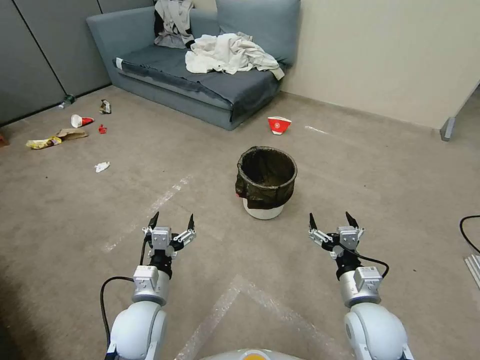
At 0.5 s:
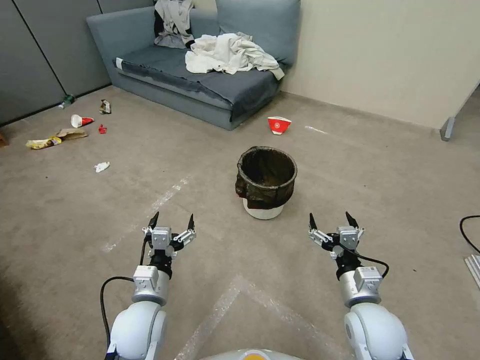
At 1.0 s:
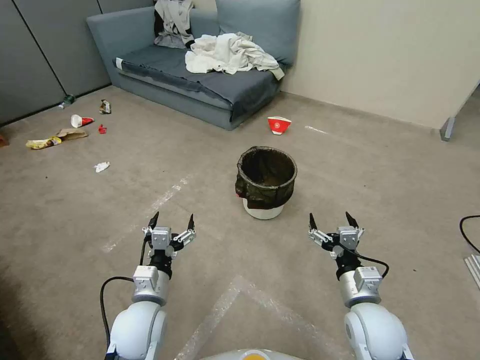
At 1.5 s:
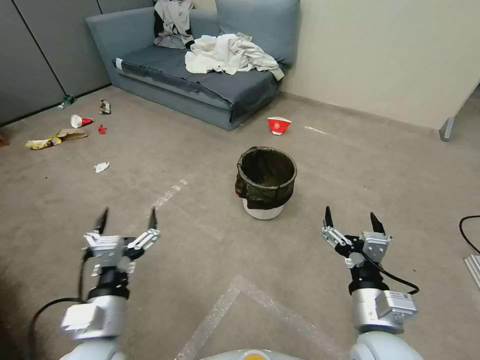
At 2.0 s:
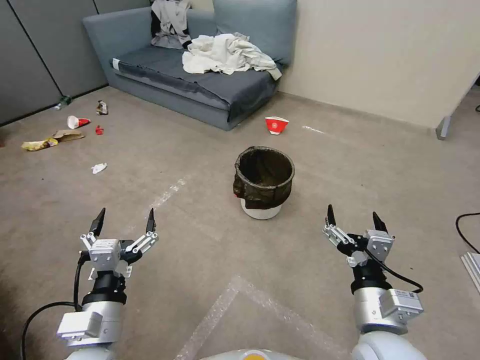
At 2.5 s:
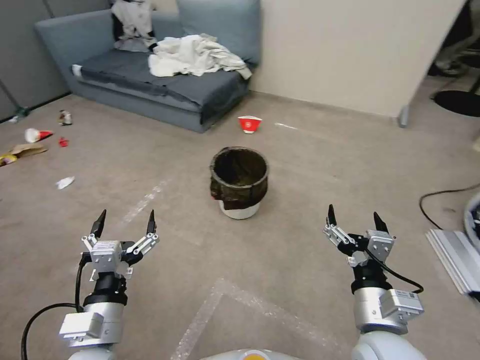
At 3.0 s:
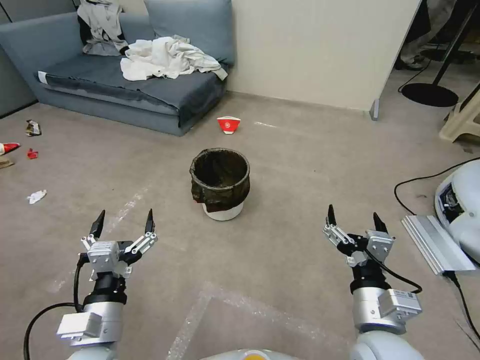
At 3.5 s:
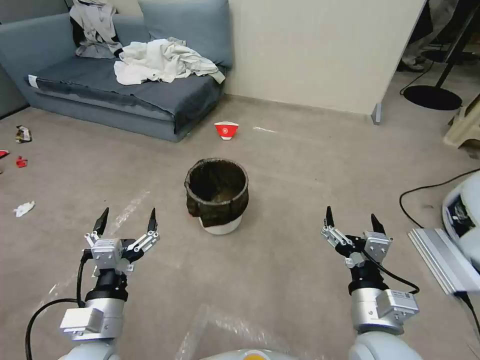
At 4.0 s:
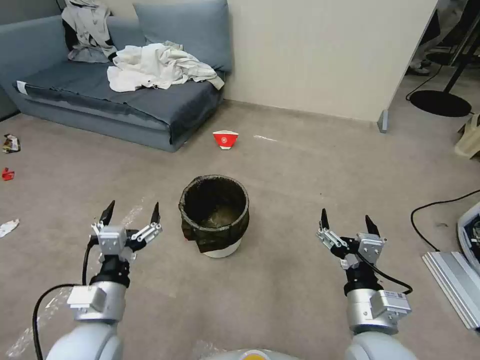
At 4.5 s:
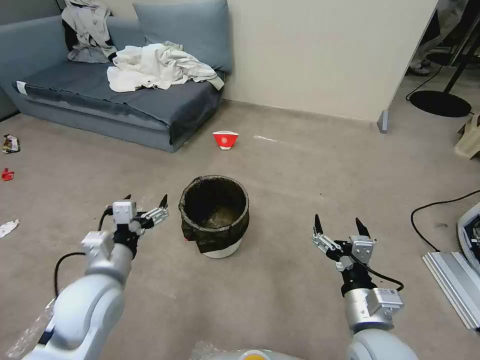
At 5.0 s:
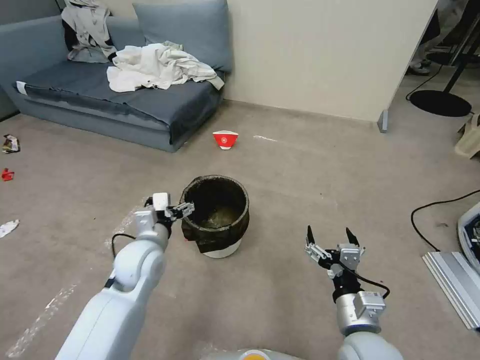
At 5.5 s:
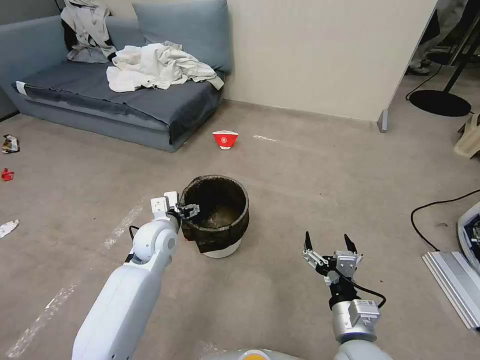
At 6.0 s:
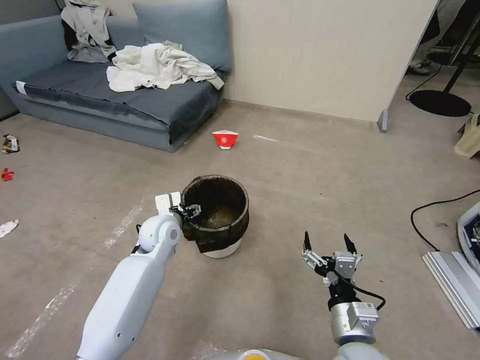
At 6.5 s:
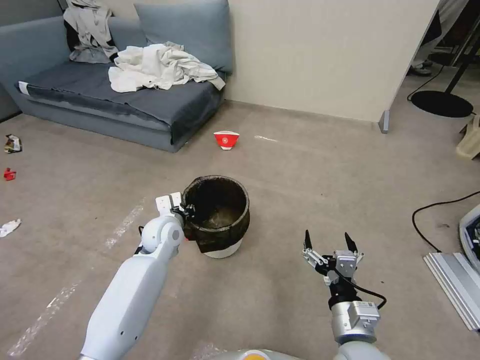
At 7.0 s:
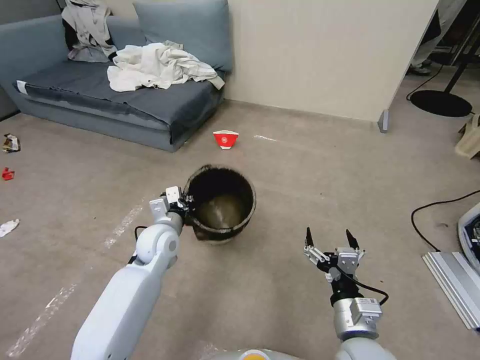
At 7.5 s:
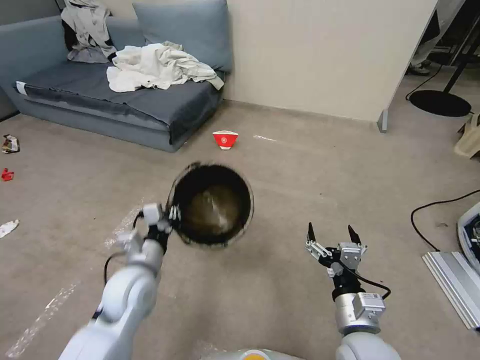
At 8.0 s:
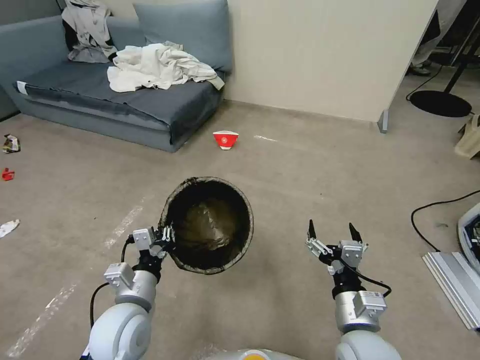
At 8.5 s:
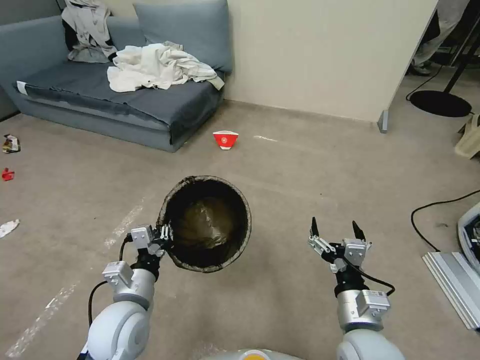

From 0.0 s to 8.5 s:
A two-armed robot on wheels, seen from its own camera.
Task of the whole recording: Pick up the trash can from the floor.
From 4.0 s to 6.5 s: The left gripper shifts about 25 cm forward, and closes. The right gripper is displaced downward by approximately 5 cm.
From 6.5 s to 8.5 s: The left gripper goes about 20 cm backward.

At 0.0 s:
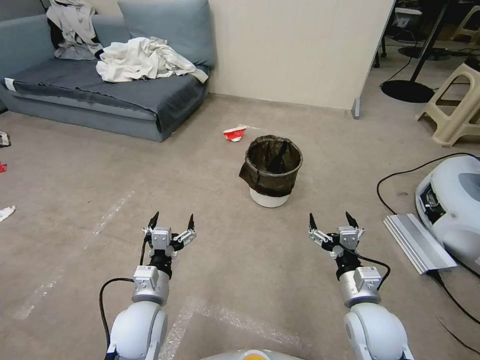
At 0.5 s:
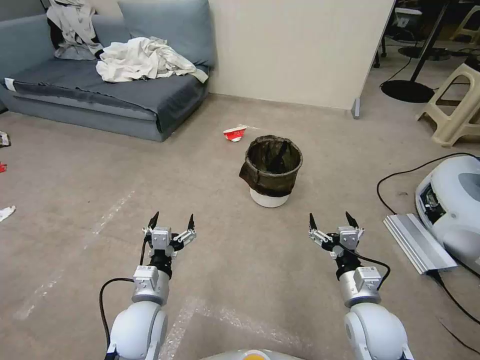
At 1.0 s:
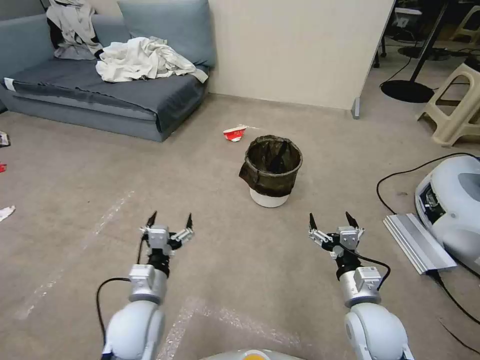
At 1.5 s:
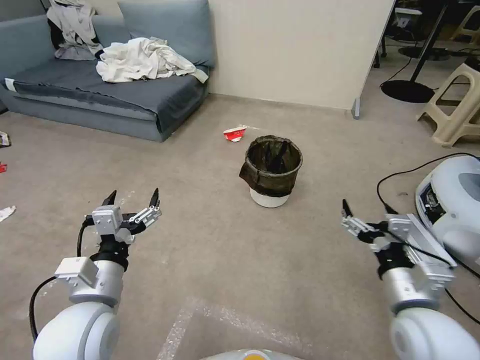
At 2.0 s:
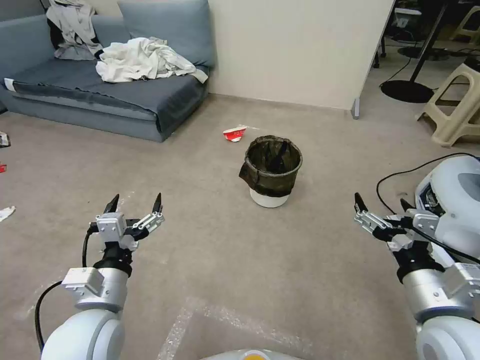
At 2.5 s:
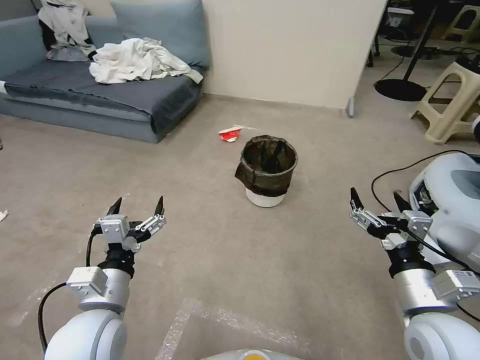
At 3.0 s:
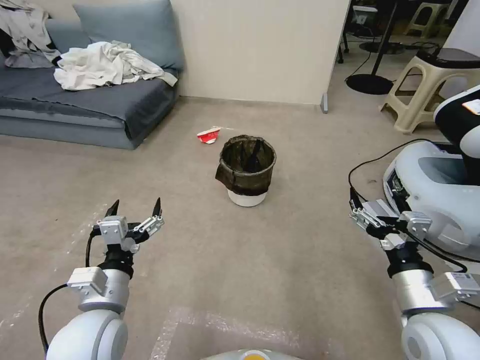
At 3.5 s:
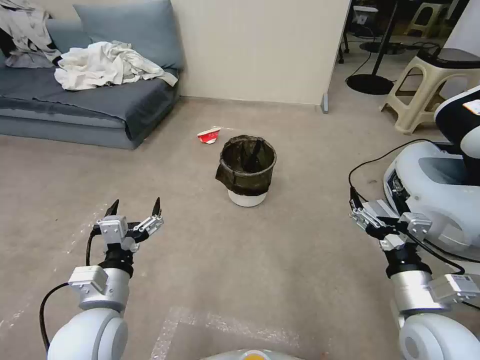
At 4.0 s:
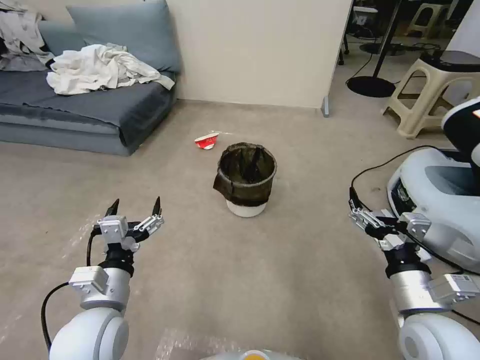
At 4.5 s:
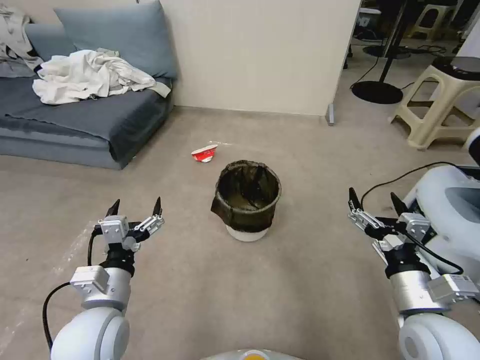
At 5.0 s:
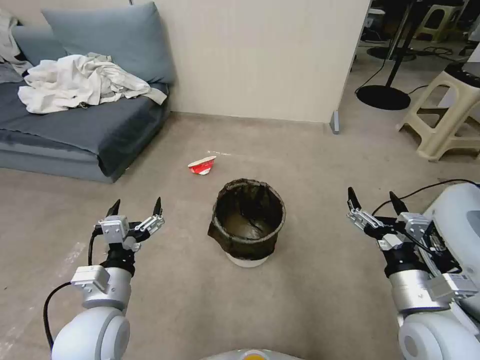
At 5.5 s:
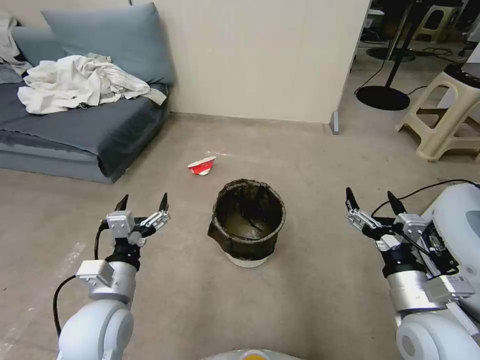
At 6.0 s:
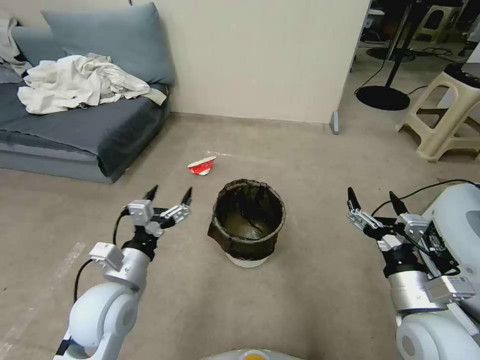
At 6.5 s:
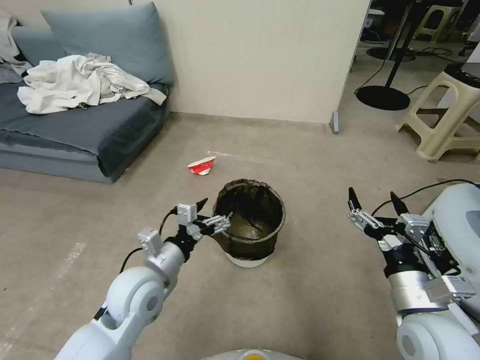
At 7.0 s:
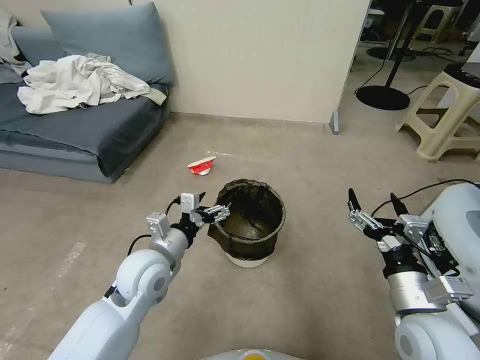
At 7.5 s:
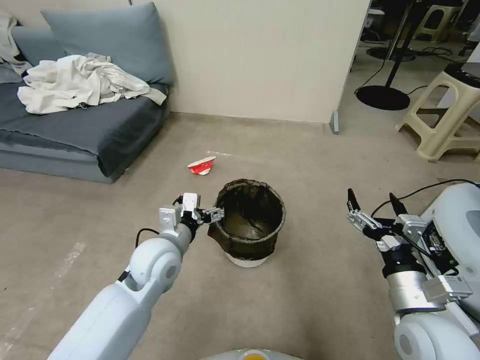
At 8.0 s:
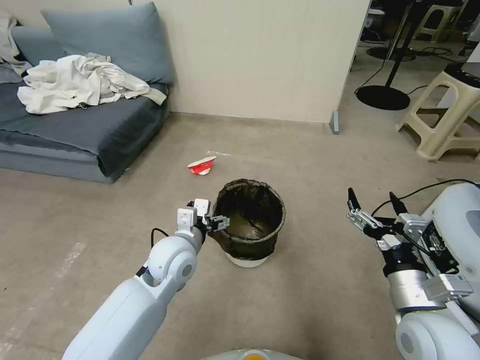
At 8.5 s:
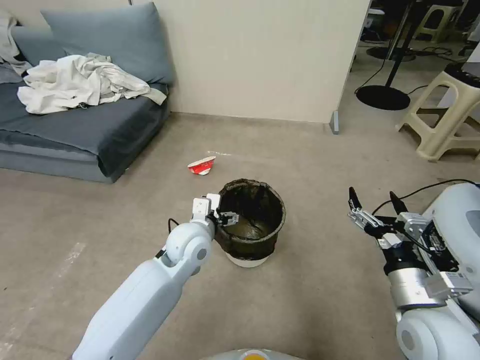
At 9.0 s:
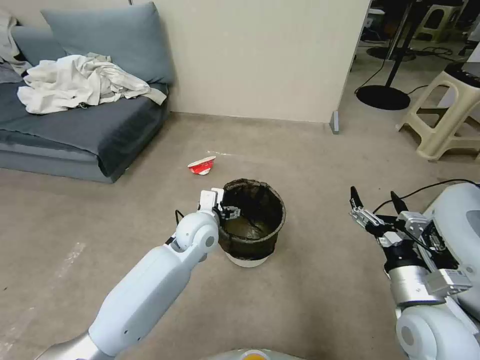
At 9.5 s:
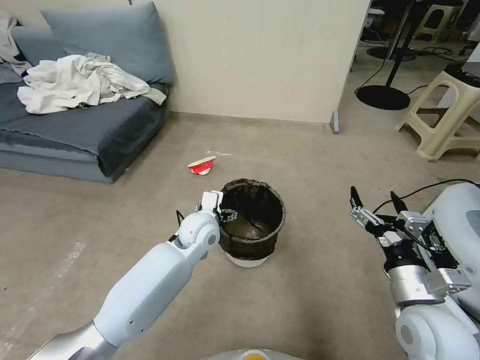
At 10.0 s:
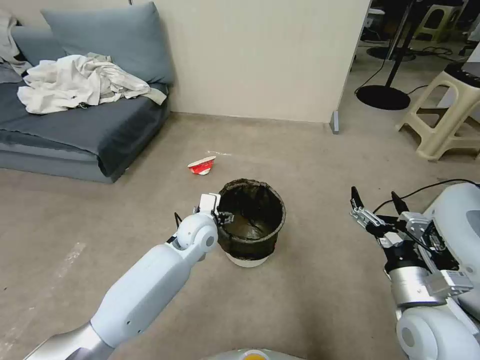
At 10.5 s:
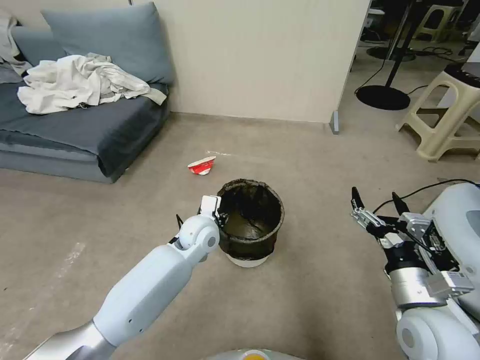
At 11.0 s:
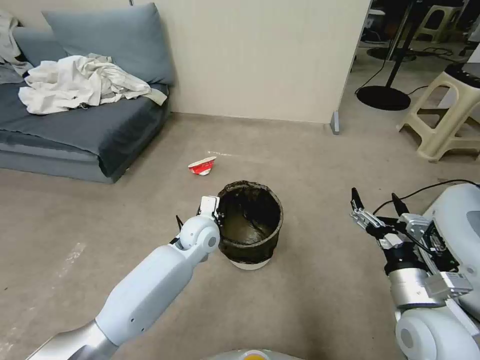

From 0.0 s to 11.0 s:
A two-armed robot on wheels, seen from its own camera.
Task of the whole recording: Pick up the trash can from the floor.
From 2.0 s to 3.5 s: The right gripper changes place by approximately 5 cm.
From 5.5 s to 7.5 s: The left gripper moves forward and to the right, some 15 cm.
From 7.5 s to 9.0 s: The left gripper shifts roughly 10 cm to the right and forward.
From 9.0 s to 11.0 s: The left gripper closes up.

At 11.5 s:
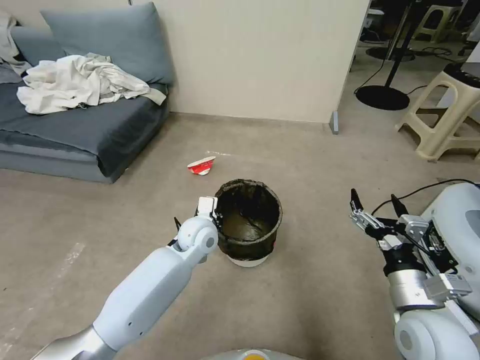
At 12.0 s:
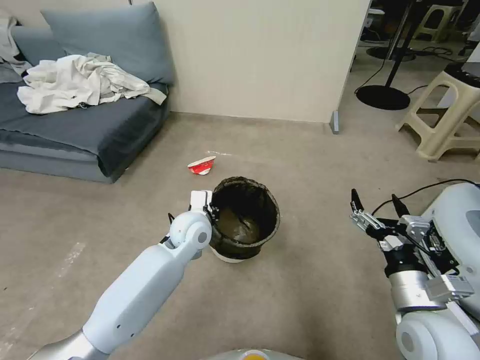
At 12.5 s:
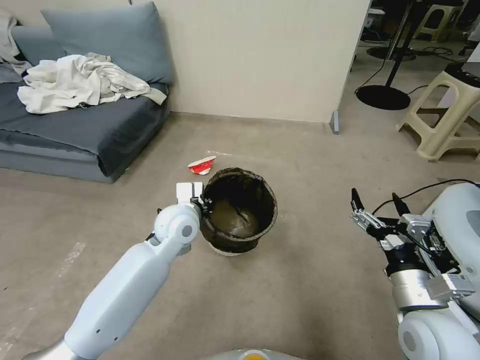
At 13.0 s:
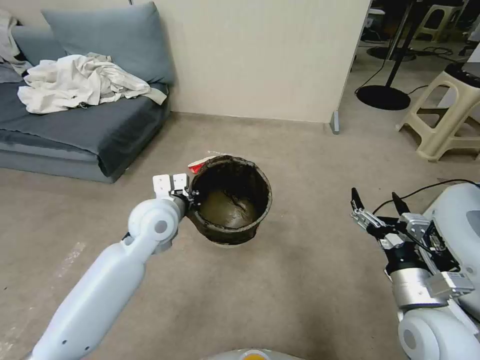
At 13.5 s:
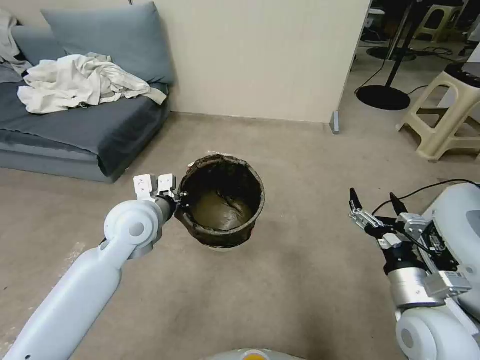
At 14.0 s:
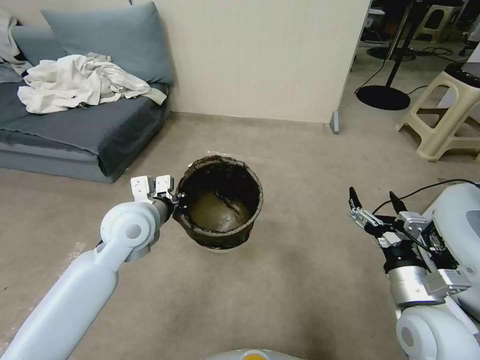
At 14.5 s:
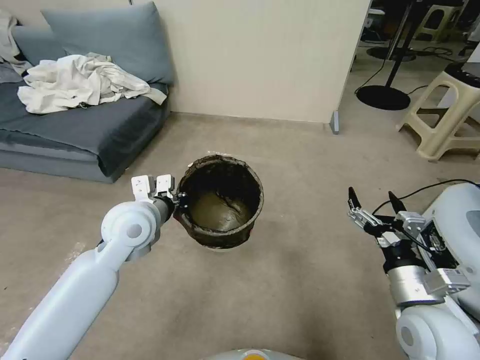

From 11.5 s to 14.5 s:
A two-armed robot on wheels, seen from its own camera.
Task of the whole recording: Pick up the trash can from the floor.
From 11.5 s to 13.0 s: The left gripper shifts some 15 cm upward and to the left.
From 13.0 s to 14.5 s: The grippers stay close to where they were, moving slightly.

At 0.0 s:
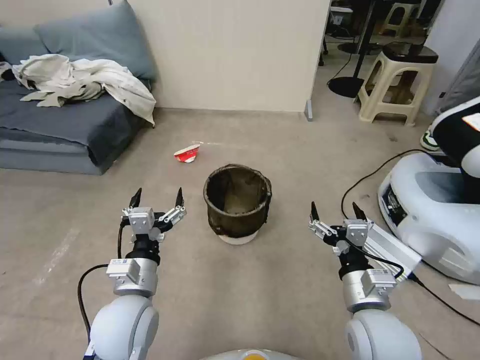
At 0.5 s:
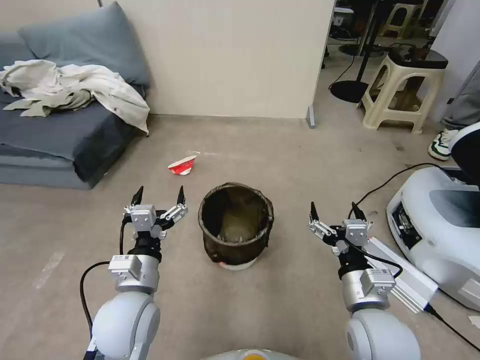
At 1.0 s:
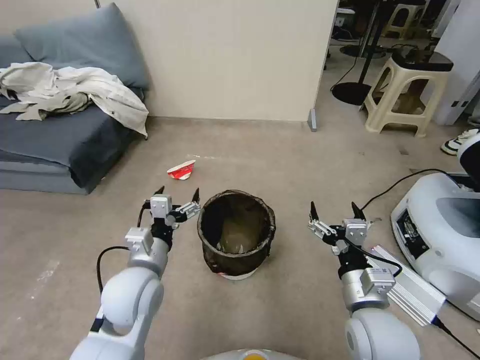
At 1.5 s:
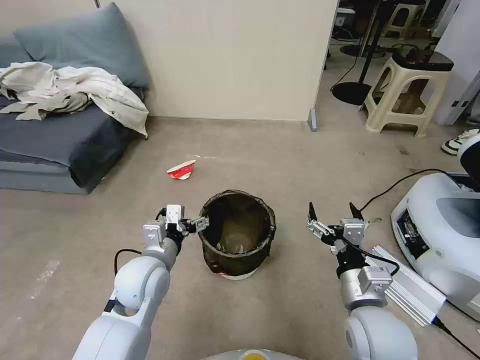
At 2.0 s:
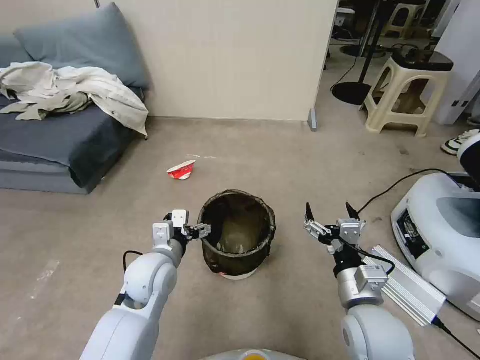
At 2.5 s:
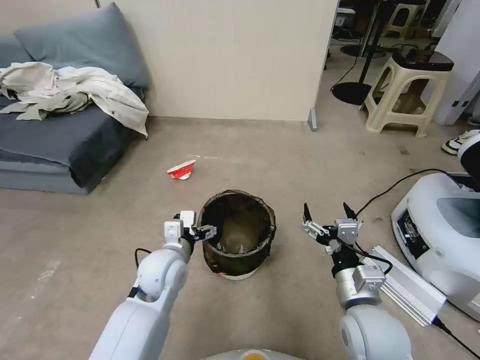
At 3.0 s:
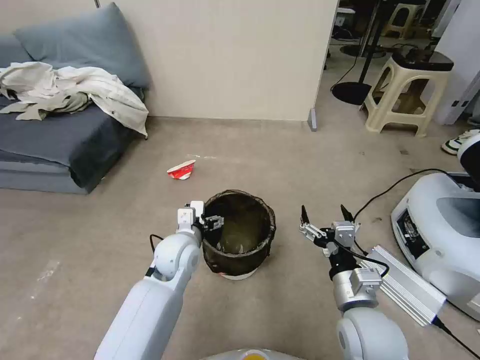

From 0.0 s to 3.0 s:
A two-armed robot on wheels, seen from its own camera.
Task of the whole recording: Pick up the trash can from the floor.
From 0.0 s to 1.5 s: The left gripper shifts roughly 5 cm forward.
From 1.5 s to 3.0 s: The left gripper goes about 10 cm forward and to the right.
